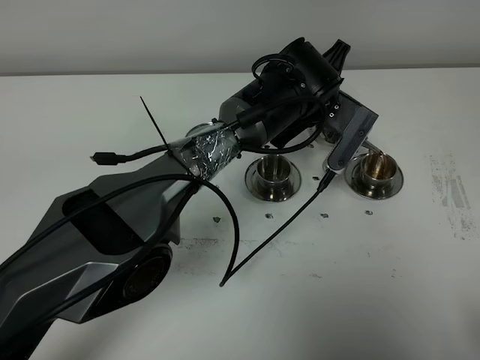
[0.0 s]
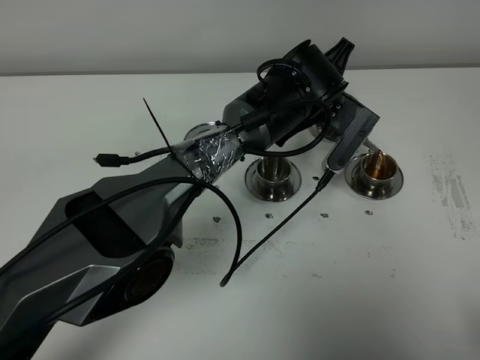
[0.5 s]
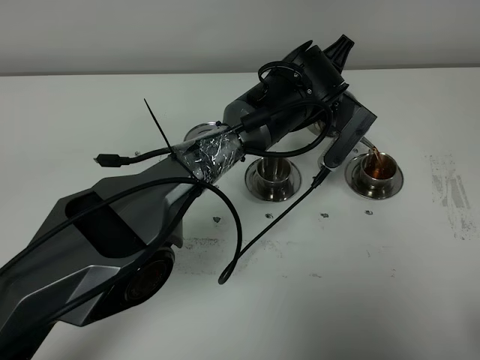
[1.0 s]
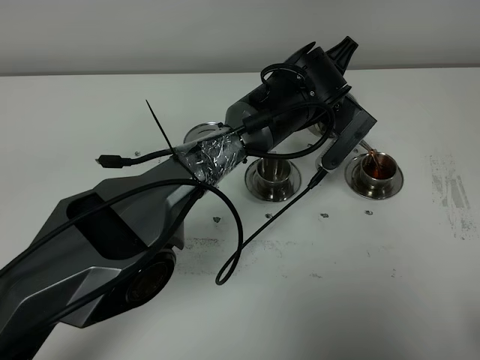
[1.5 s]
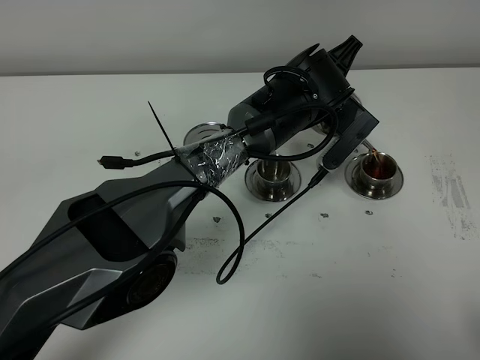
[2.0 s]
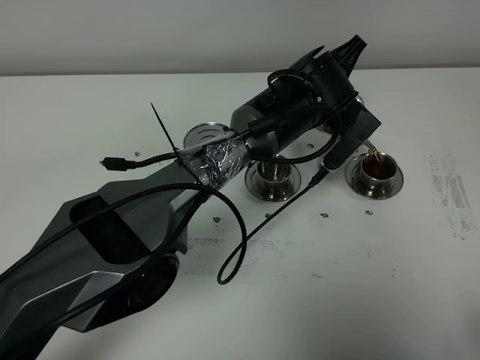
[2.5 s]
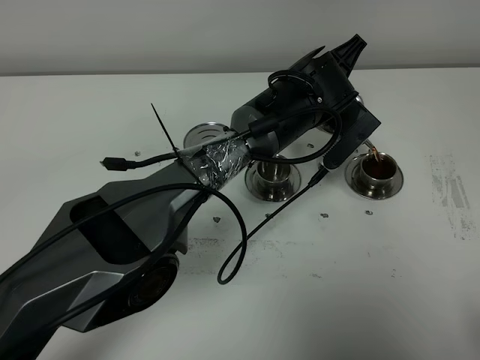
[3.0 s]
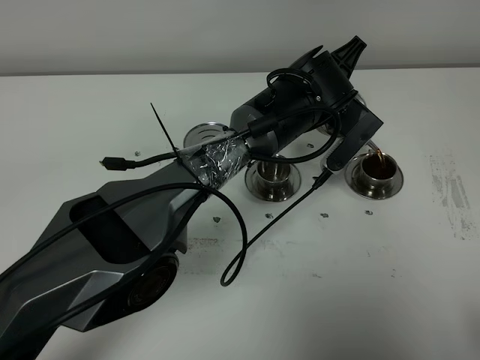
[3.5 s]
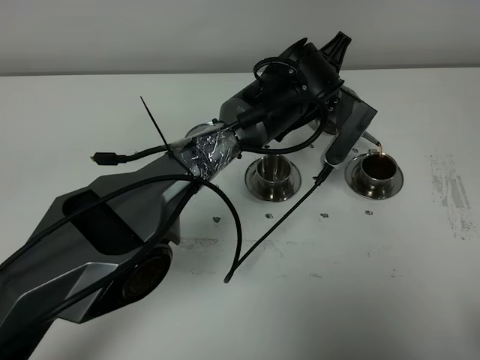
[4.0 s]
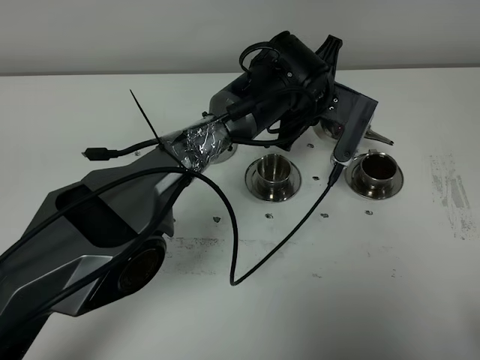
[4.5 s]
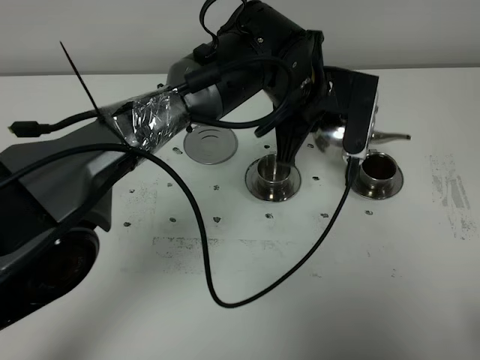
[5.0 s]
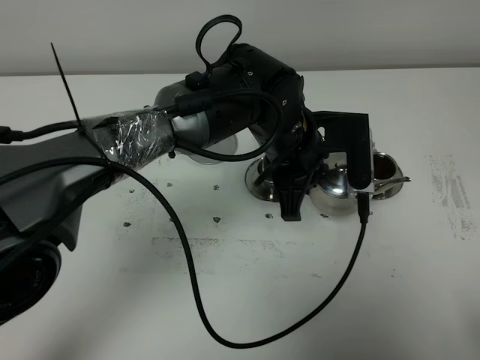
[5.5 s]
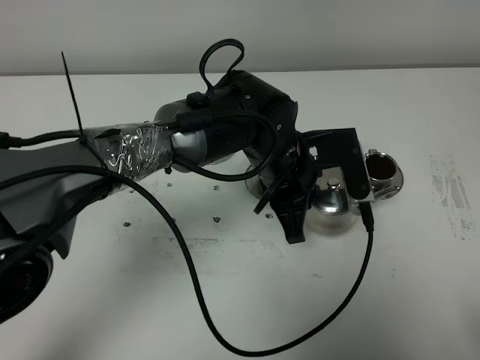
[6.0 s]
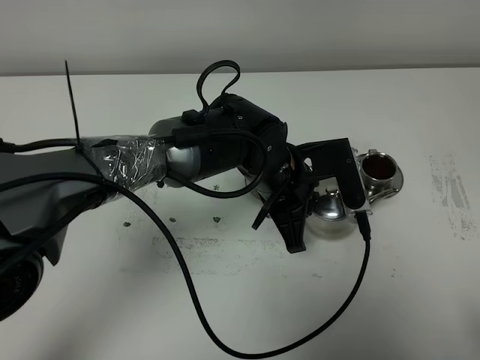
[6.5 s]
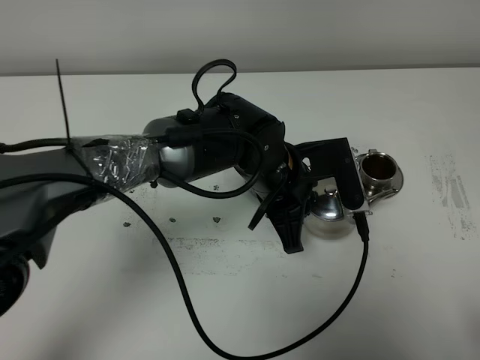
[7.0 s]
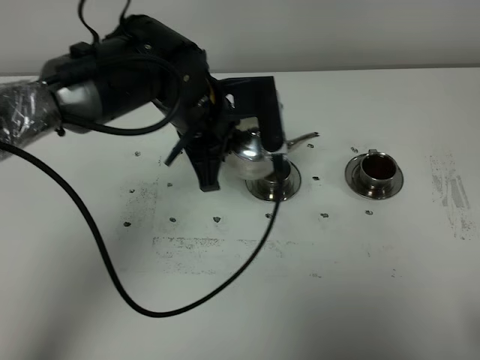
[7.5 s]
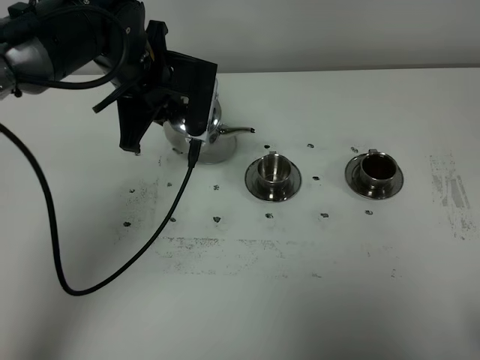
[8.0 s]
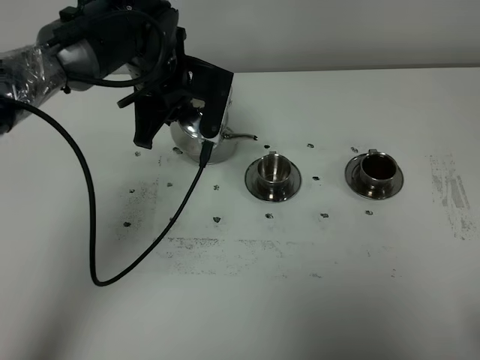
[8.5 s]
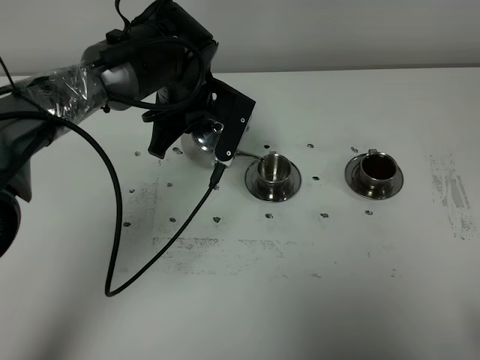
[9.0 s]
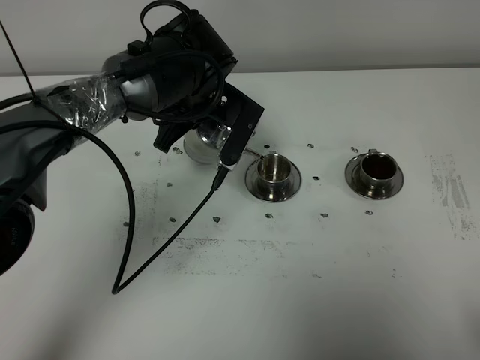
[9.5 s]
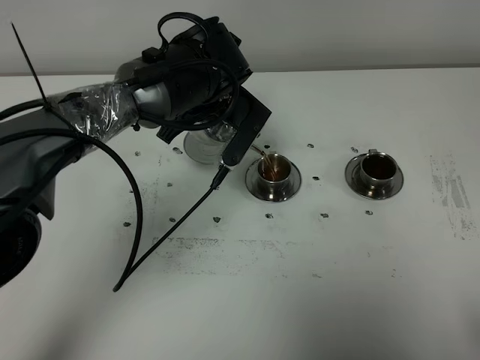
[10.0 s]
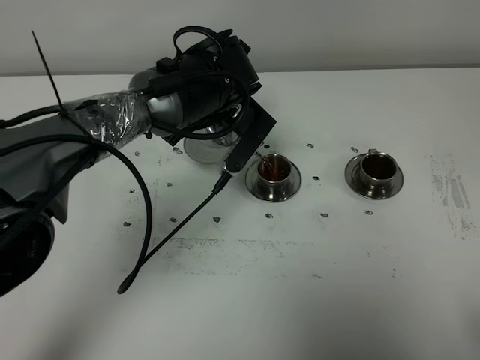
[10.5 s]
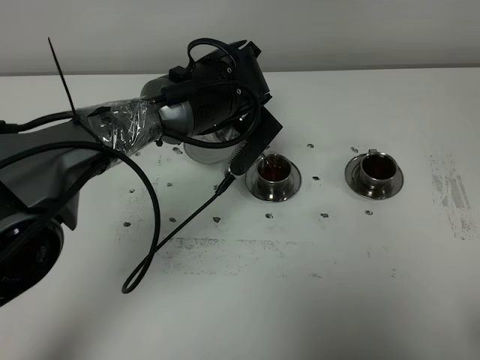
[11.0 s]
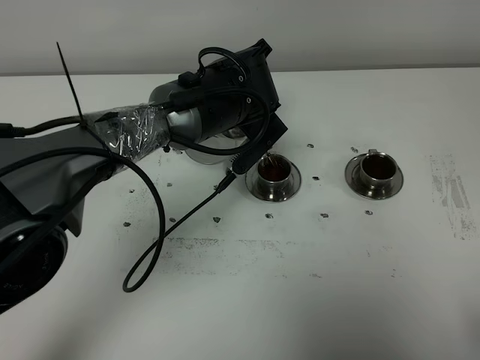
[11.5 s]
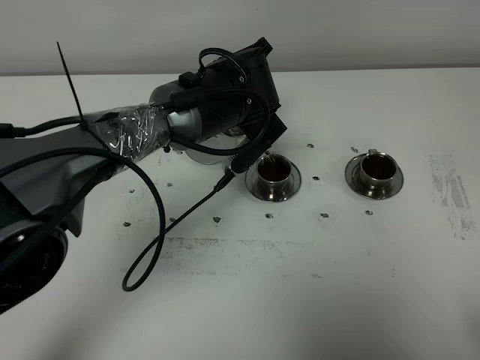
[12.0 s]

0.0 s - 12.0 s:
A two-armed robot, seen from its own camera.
Task of the whole recording: grasp the stainless steel teapot and pour the tea into the two stainless steel teacups one by one, put the stainless steel teapot back in its original place.
Step, 0.0 s - 4.0 s: Pour tea into the teacup with the left gripper.
0.0 s - 4.0 s: The grippers stay close to where they were, moving slightly.
4.0 s - 6.0 s: The left gripper travels backward by approximately 10 cm.
6.0 s - 8.0 s: The left gripper travels to the left, forward and upward by some 20 cm.
8.0 s - 10.0 s: The left gripper shifts some 10 cm to the right.
10.0 s - 12.0 s: The grippers stay close to where they were, moving slightly.

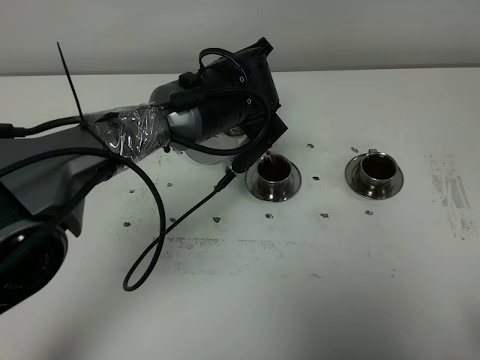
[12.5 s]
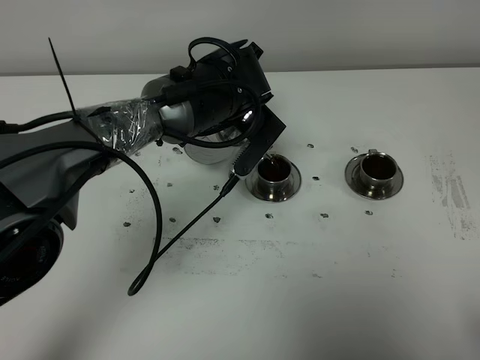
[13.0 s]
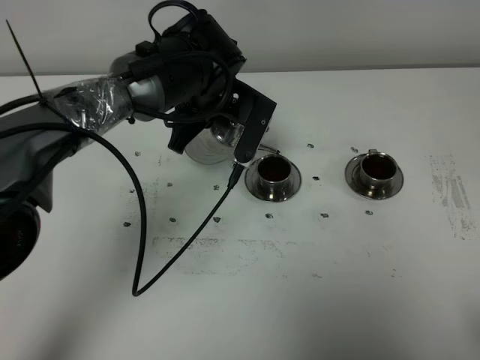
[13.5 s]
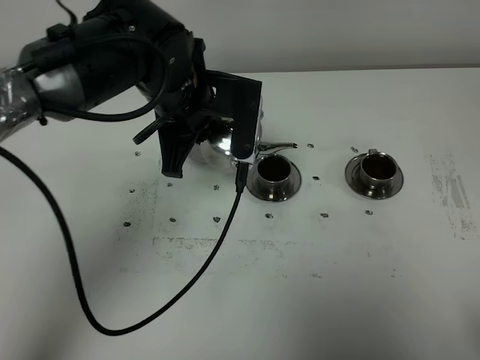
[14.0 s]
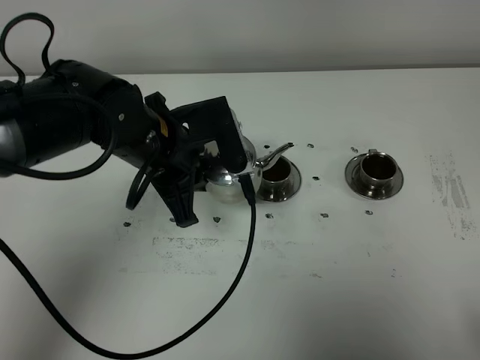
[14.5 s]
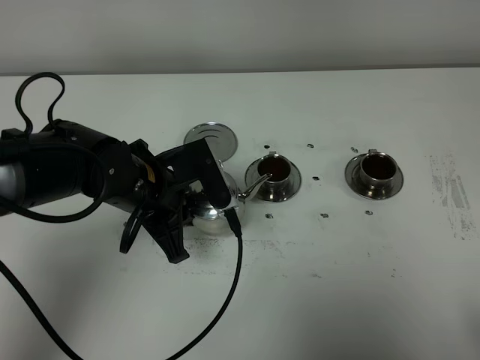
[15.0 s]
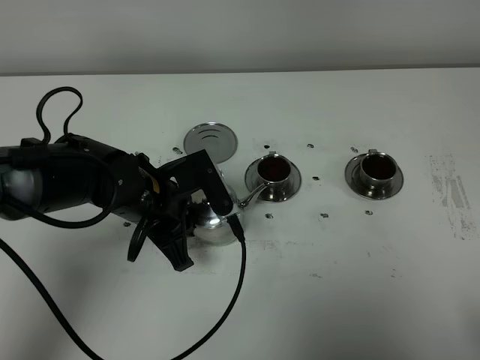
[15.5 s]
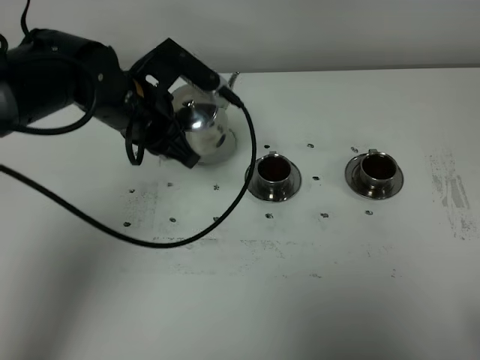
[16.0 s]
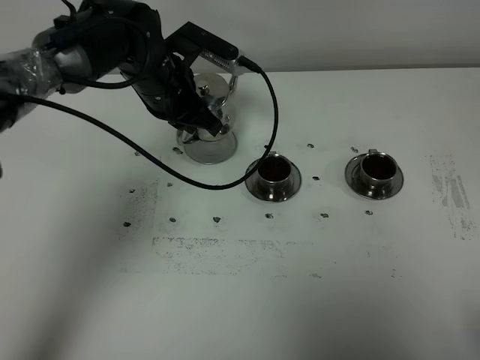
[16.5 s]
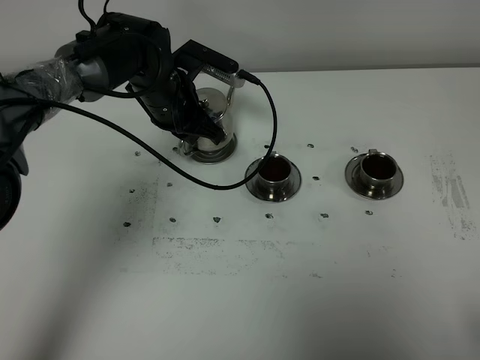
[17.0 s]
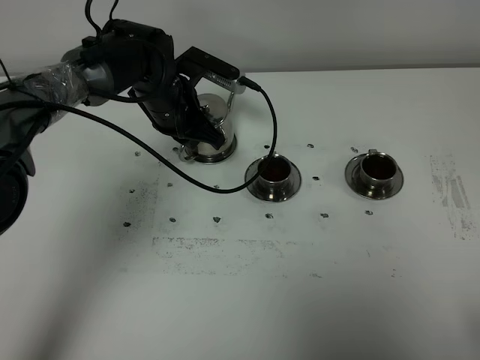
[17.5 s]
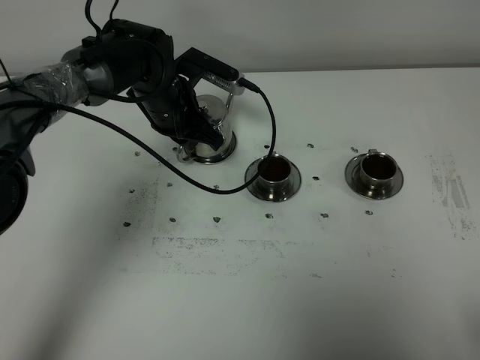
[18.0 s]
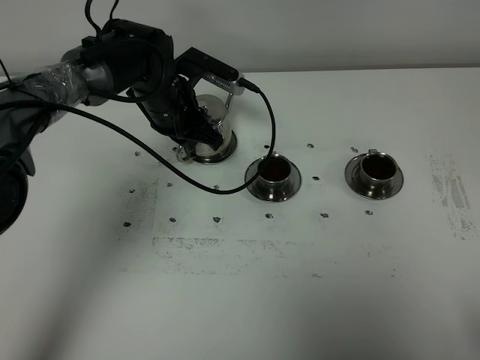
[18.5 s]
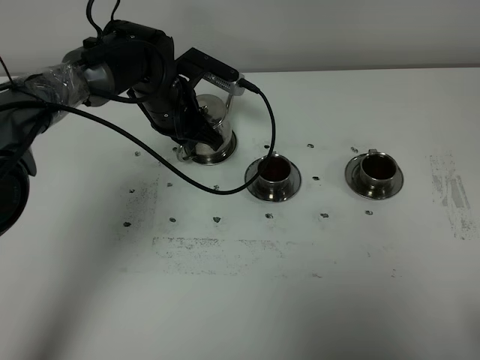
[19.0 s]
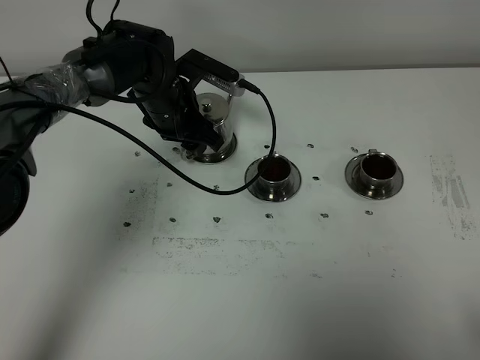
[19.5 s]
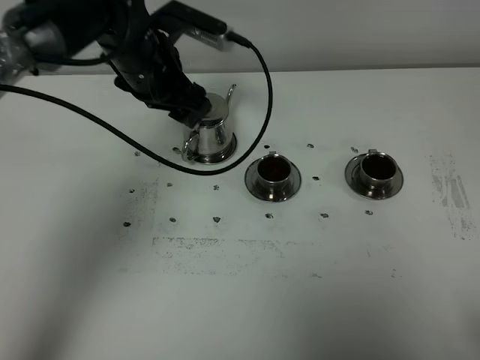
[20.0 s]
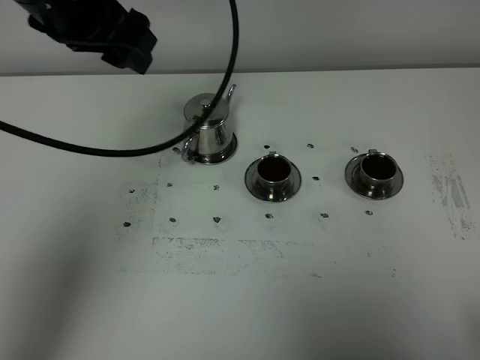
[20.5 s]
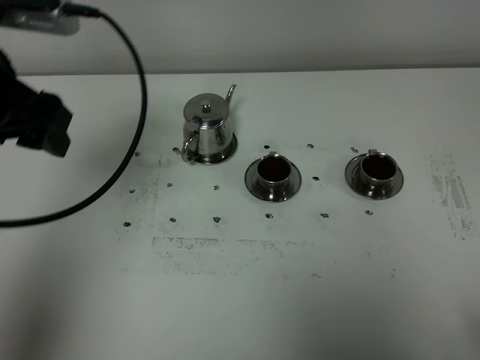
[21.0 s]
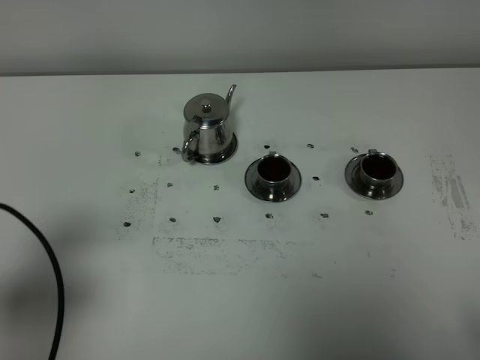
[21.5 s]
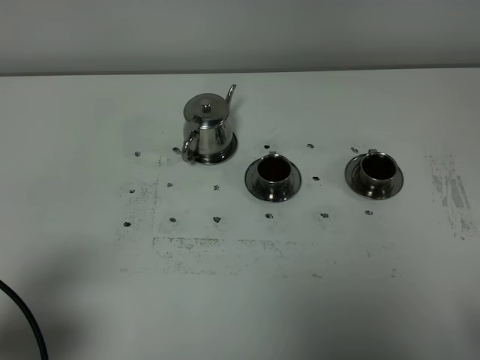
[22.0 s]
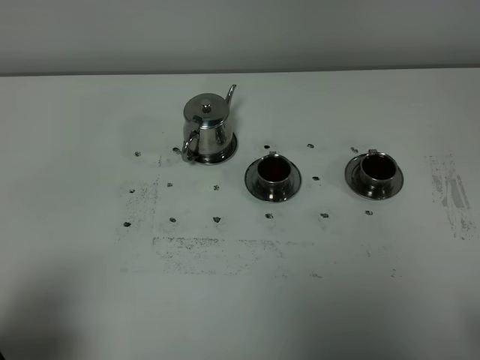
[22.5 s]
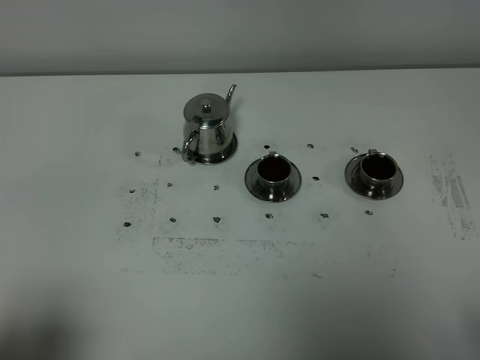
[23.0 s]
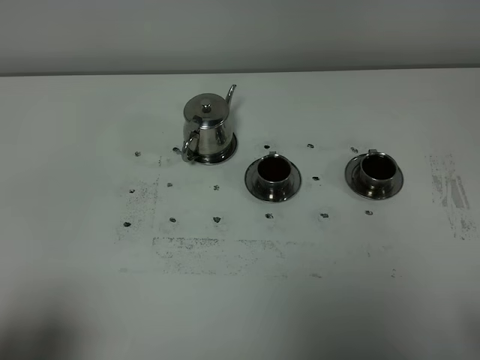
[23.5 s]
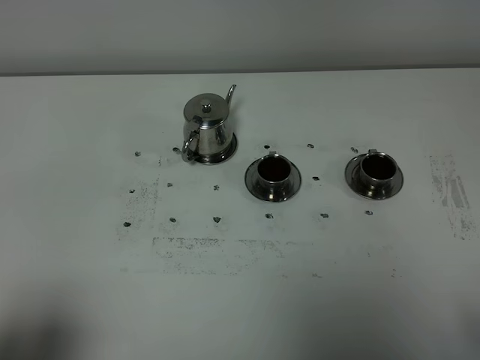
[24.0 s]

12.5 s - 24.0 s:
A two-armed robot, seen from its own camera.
Task of the whole recording: grasp the stainless steel teapot and pour the tea into the two stainless steel teacups one by one, put the stainless steel teapot back in its original place.
12.5 s - 14.5 s: The left gripper travels to the left and backward by about 15 cm.
14.5 s - 16.5 s: The left gripper is displaced forward by roughly 15 cm.
16.5 s - 18.5 s: The grippers stay close to where they were, moving slightly.
18.5 s - 20.0 s: The left gripper shifts approximately 10 cm upward, and opens up.
20.0 s - 22.0 s: The left gripper shifts roughly 40 cm backward and to the left.
22.0 s - 24.0 s: The left gripper heads backward, covering approximately 5 cm.

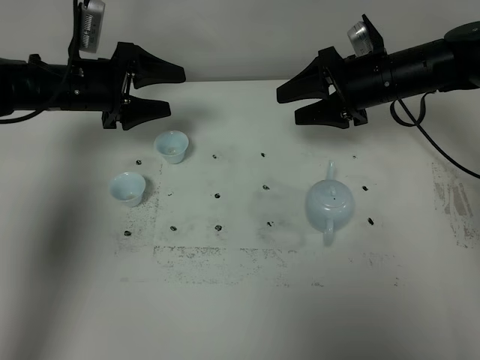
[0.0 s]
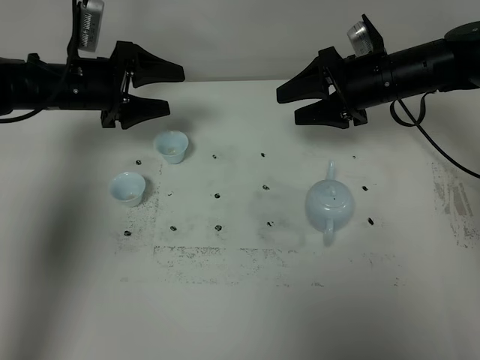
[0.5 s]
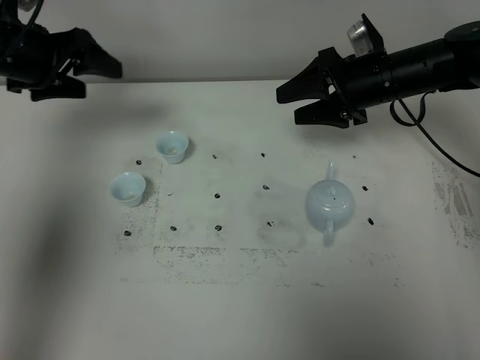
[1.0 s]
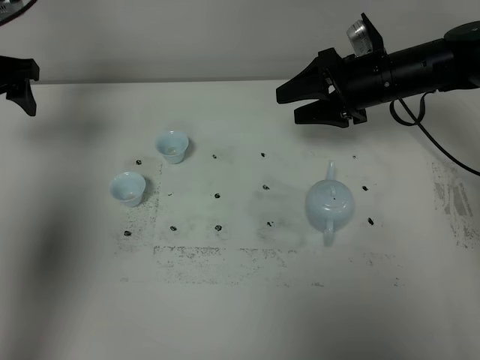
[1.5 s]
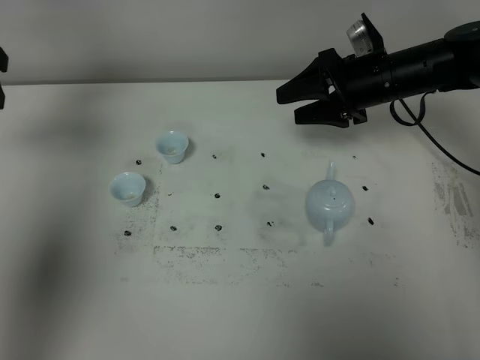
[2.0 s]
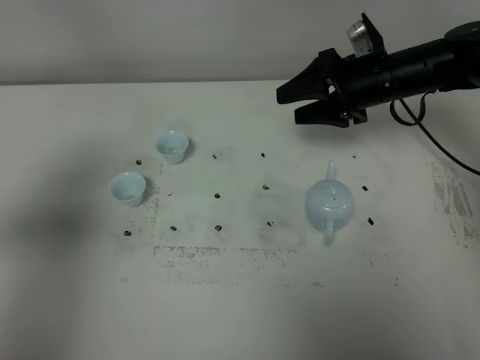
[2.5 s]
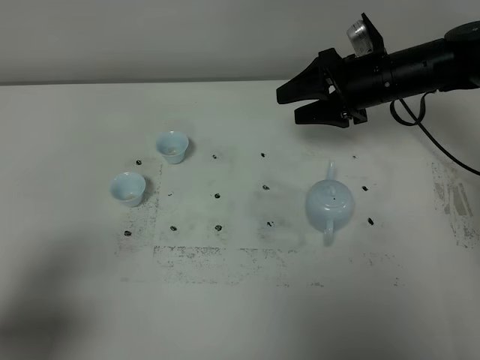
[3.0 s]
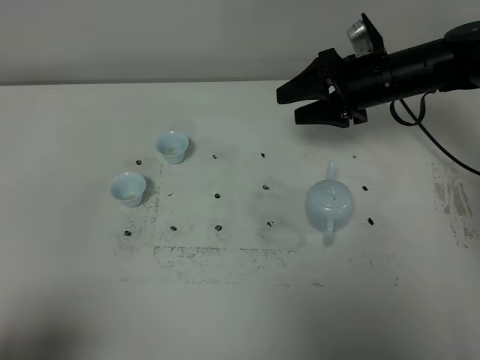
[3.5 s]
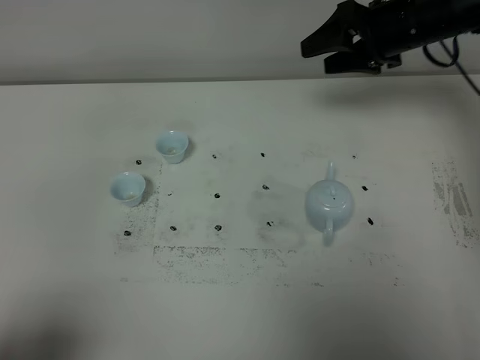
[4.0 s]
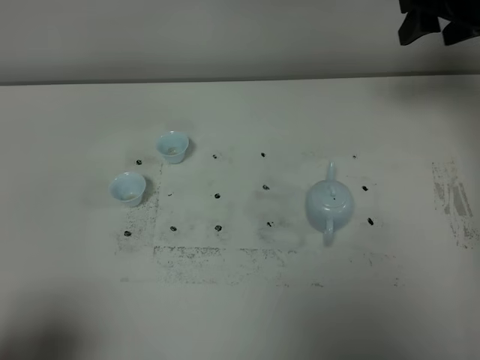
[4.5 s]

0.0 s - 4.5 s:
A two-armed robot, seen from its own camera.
Task of the whole recording: grasp the blue porcelain teapot and pour the tea into the two blue porcelain teacups one by one, put the blue porcelain teapot back in its original place.
0.0 s - 2.0 s: The left gripper is displaced upward, to the left and backward by approximately 20 cm.
2.0 s - 4.5 s: The left gripper travels backward by about 40 cm; the right gripper is displaced upward and to the right by approximately 15 cm.
